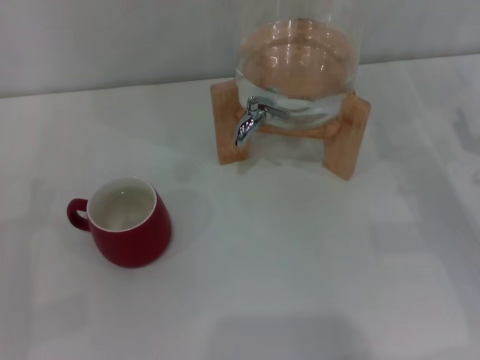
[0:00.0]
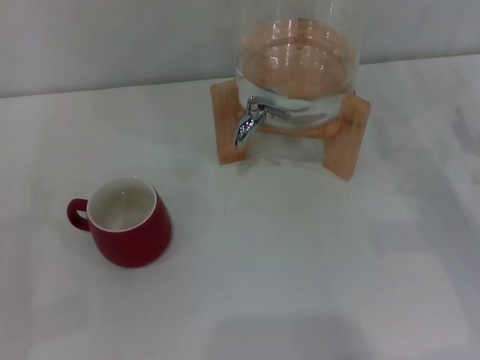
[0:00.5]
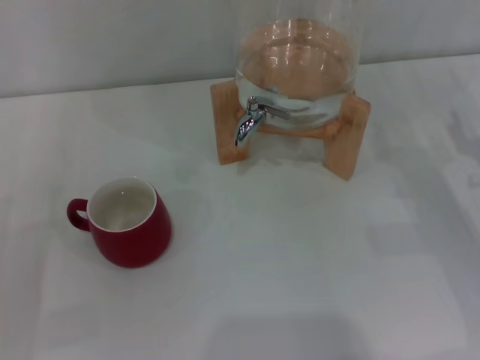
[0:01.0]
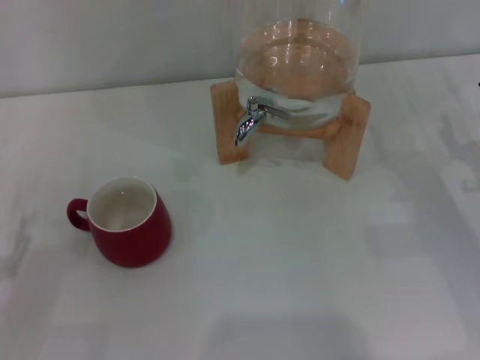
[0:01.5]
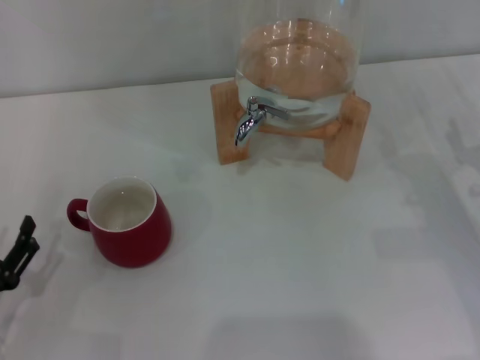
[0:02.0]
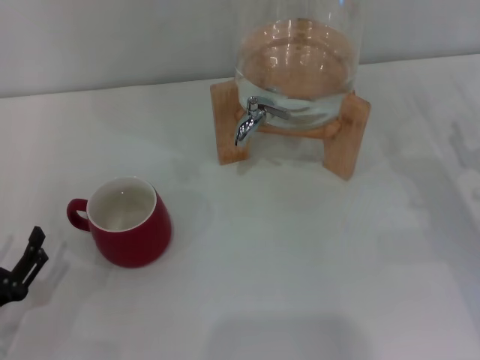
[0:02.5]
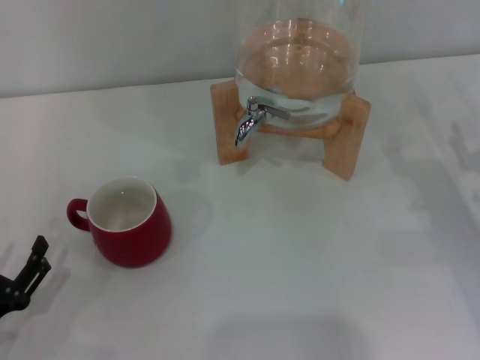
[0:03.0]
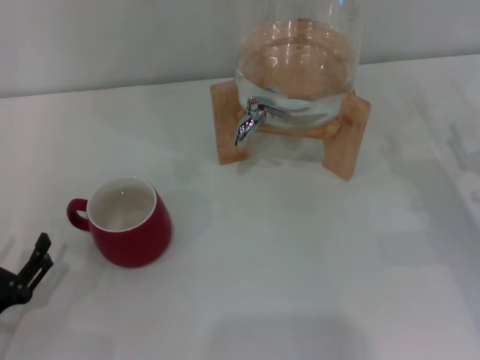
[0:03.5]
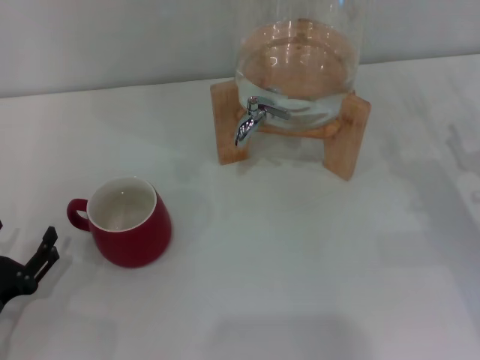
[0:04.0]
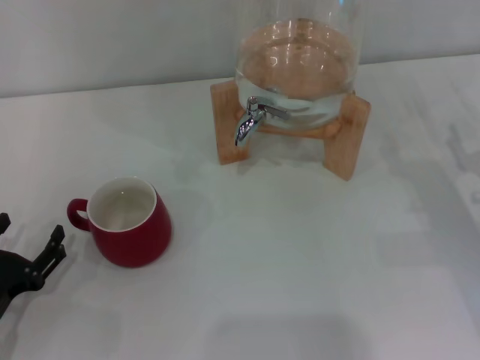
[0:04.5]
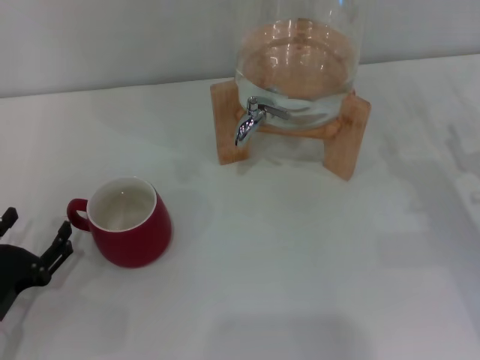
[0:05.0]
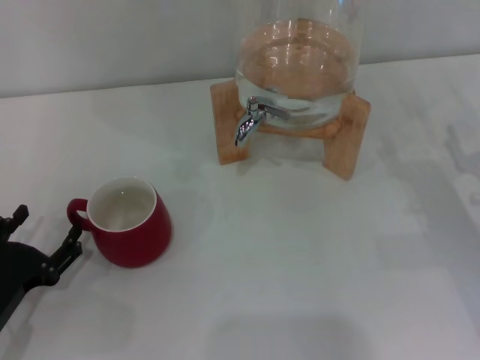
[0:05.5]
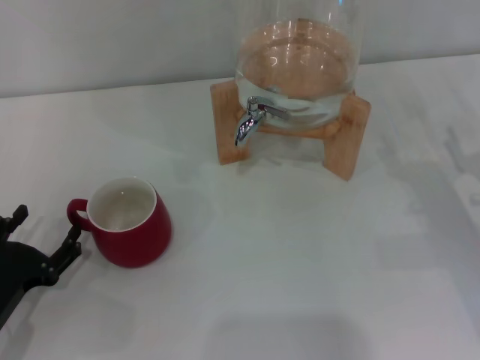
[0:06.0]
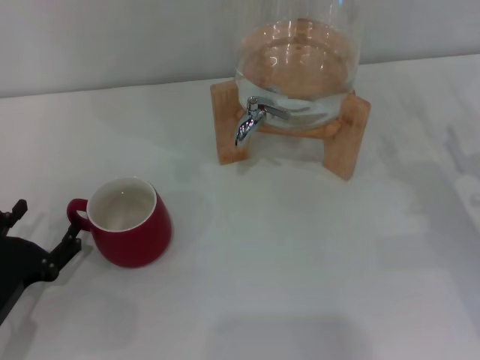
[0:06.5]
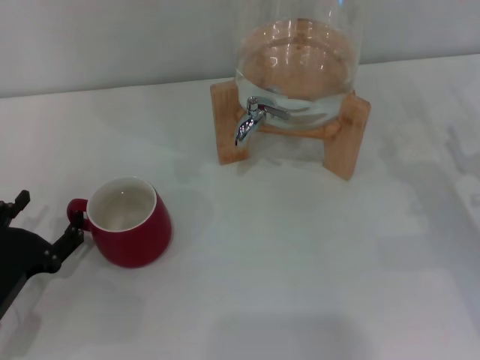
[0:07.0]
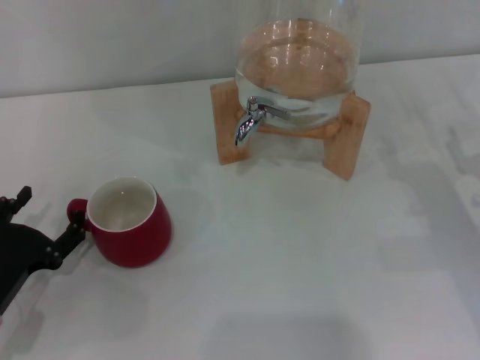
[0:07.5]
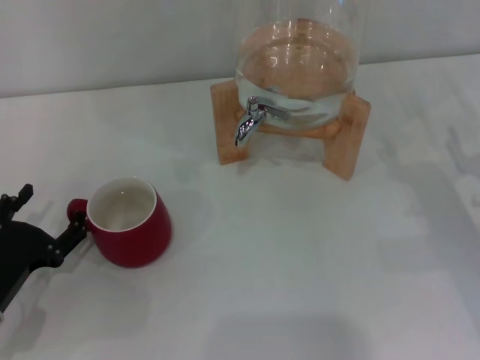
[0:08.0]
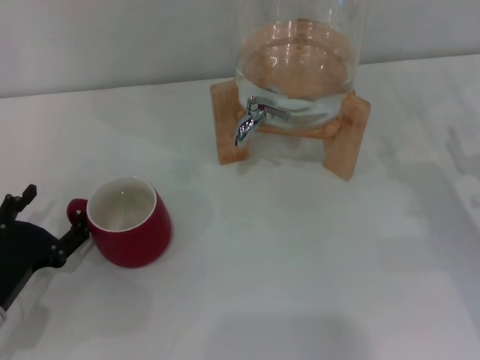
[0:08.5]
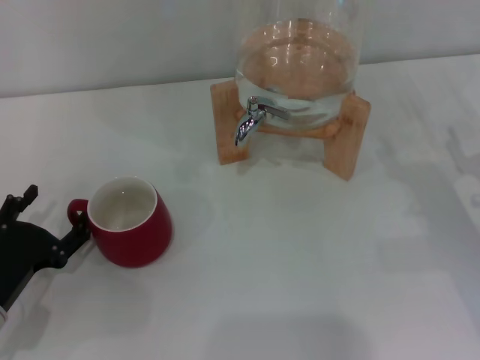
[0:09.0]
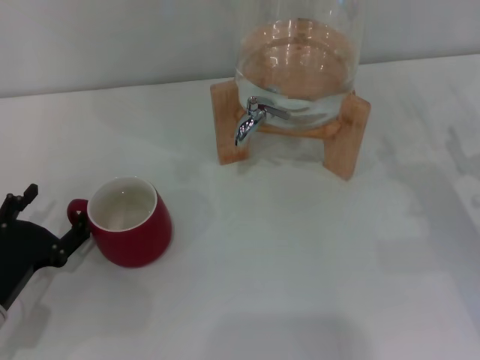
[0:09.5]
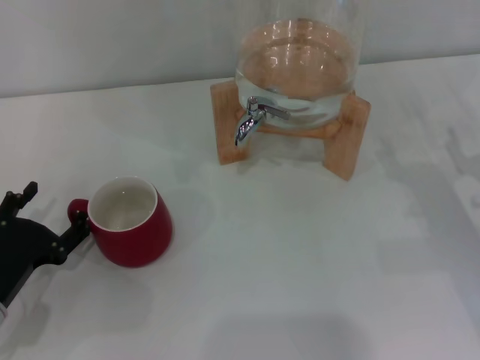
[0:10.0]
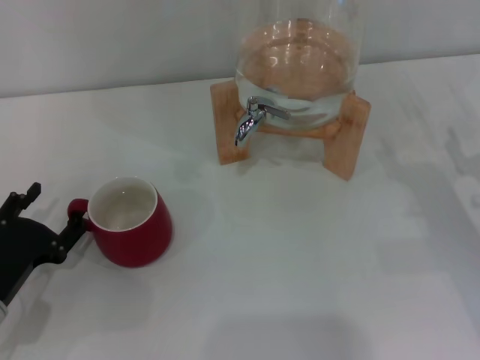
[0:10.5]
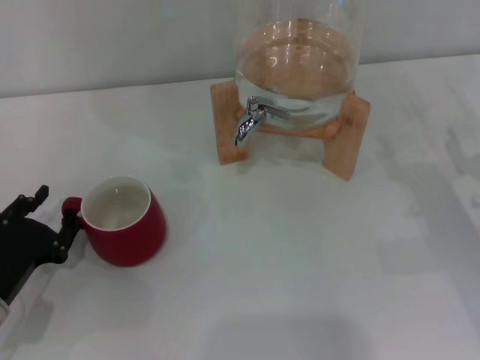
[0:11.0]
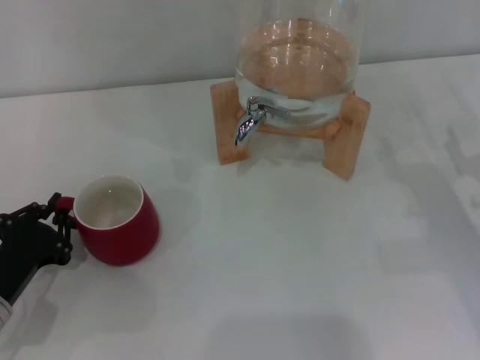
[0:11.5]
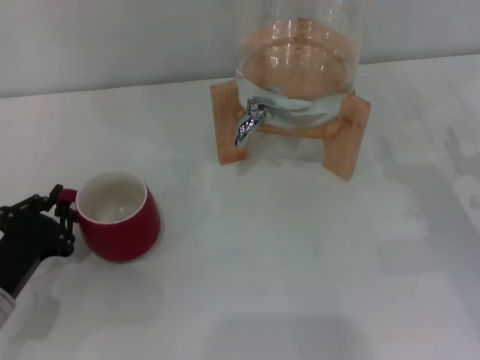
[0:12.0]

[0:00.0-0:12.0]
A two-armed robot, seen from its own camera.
Task of the whole recording: the left gripper pick up the red cup and place it horizontally under the faucet, the right gripper turn on the faucet to fill the cup, and then turn off the faucet.
0:00.0 to 0:02.0: The left gripper changes place by approximately 10 cm.
0:02.0 to 0:08.0: The grippers move only a little.
0:08.0 to 0:10.0: Both grippers stay put.
0:10.0 to 0:12.0: The left gripper closes up.

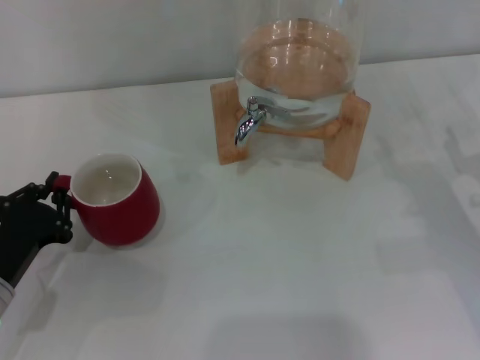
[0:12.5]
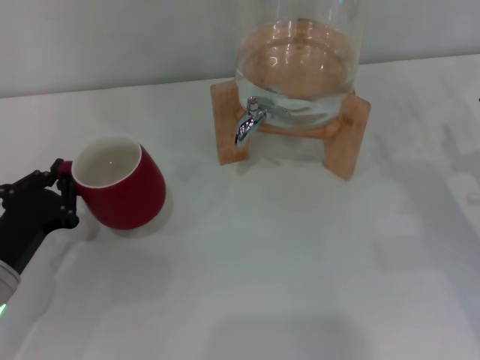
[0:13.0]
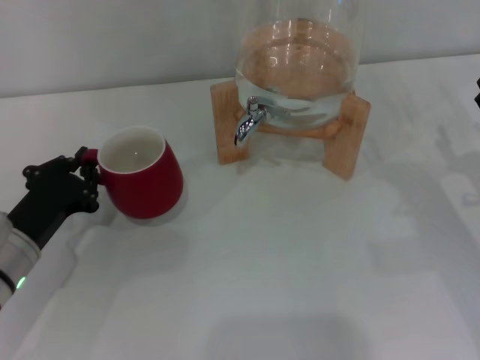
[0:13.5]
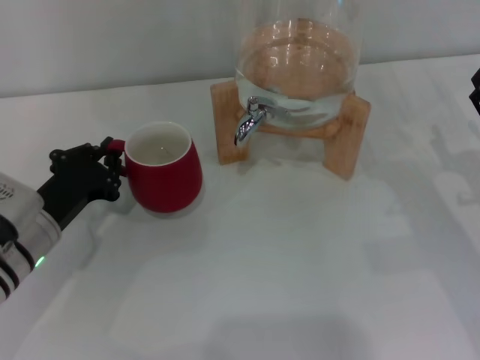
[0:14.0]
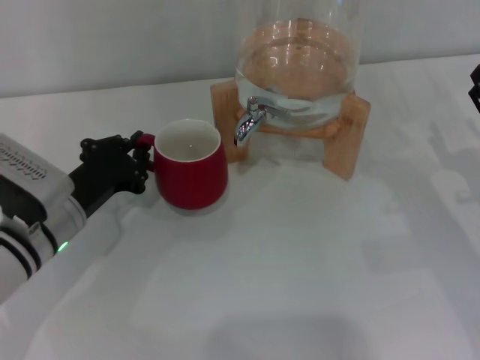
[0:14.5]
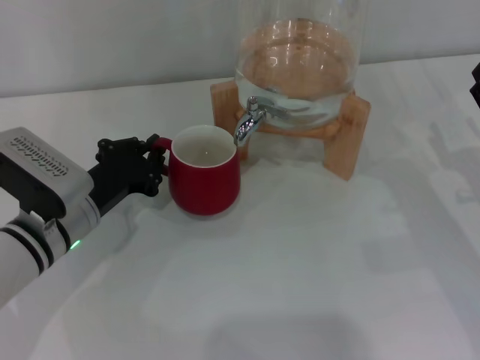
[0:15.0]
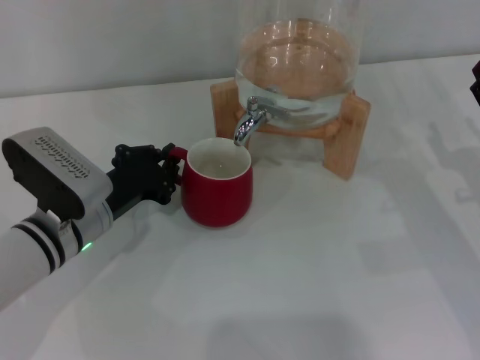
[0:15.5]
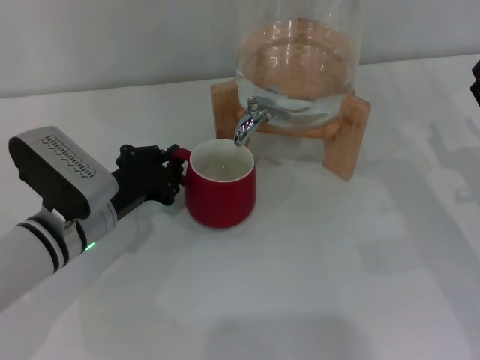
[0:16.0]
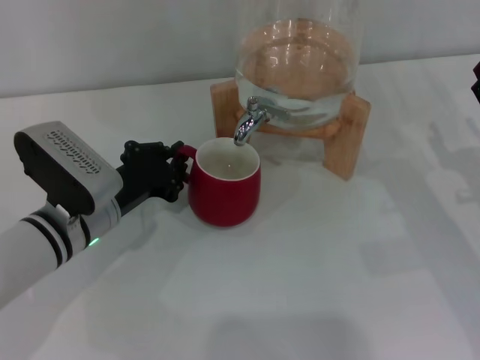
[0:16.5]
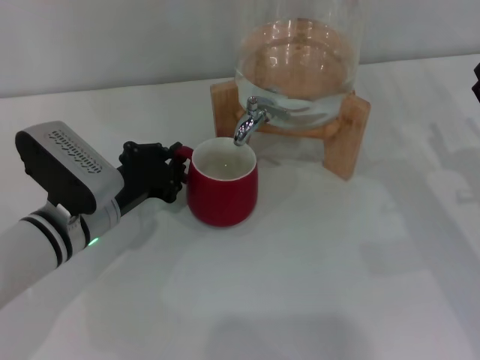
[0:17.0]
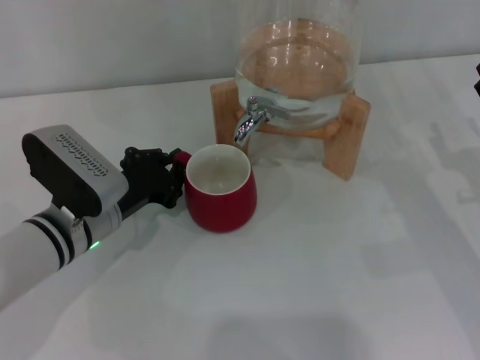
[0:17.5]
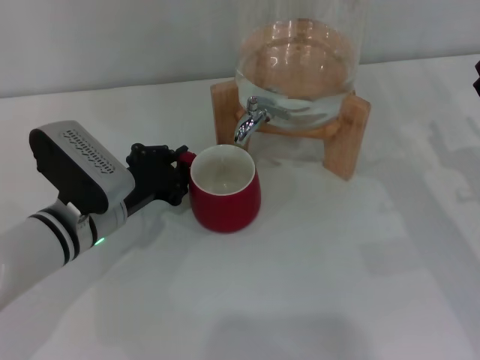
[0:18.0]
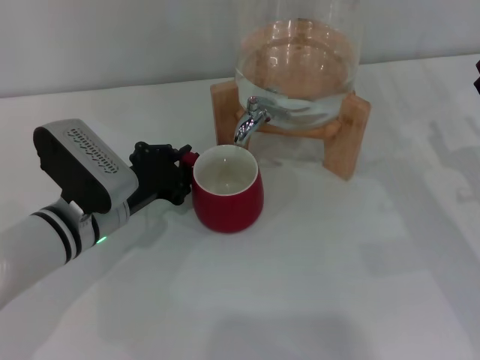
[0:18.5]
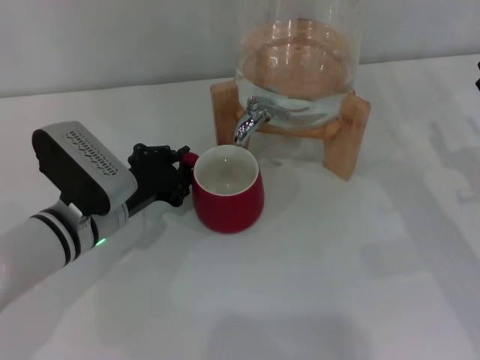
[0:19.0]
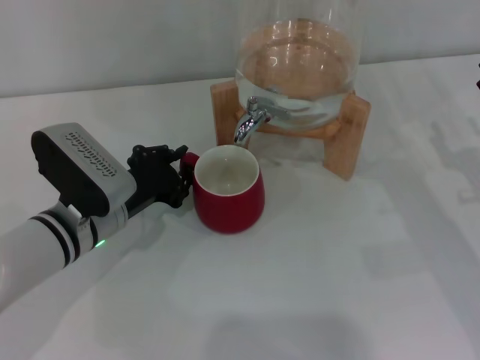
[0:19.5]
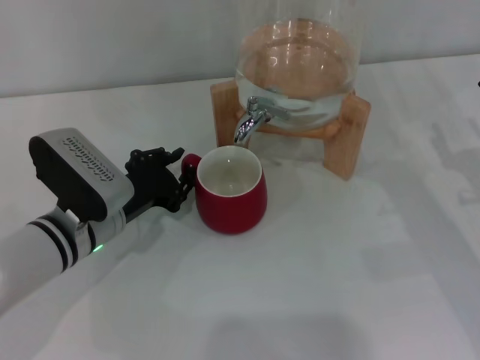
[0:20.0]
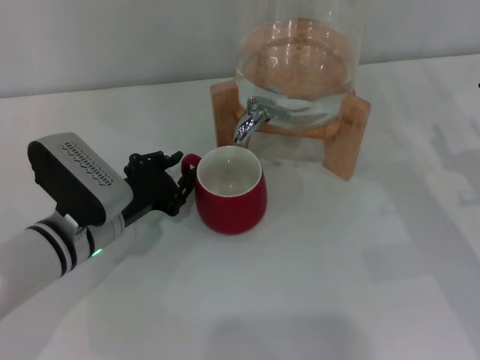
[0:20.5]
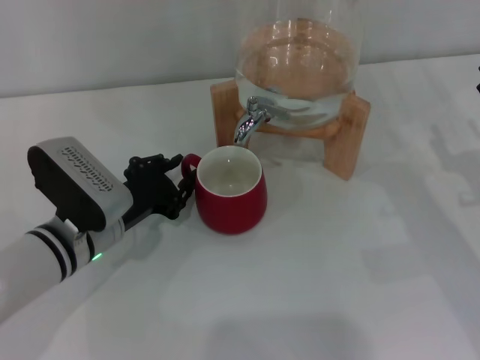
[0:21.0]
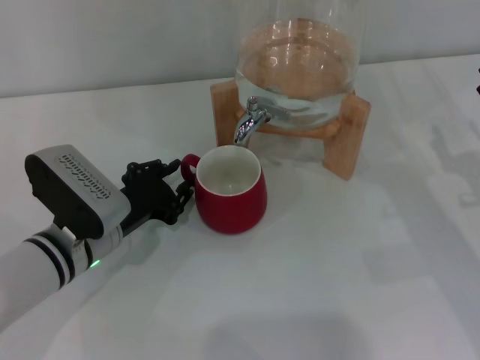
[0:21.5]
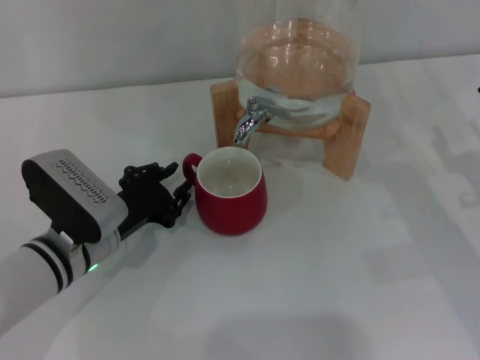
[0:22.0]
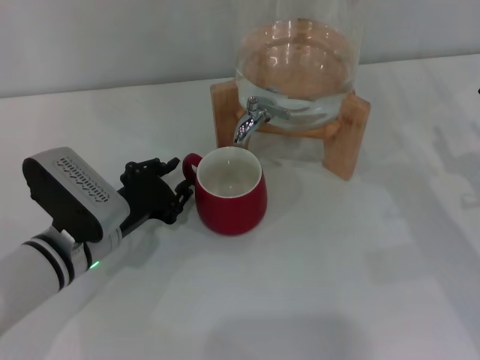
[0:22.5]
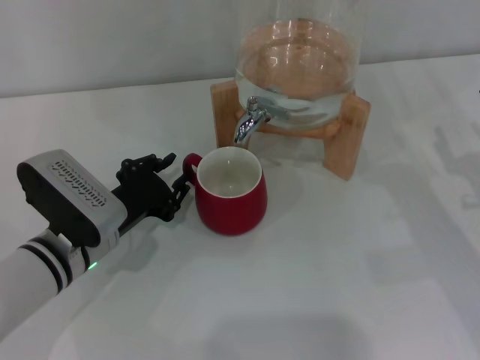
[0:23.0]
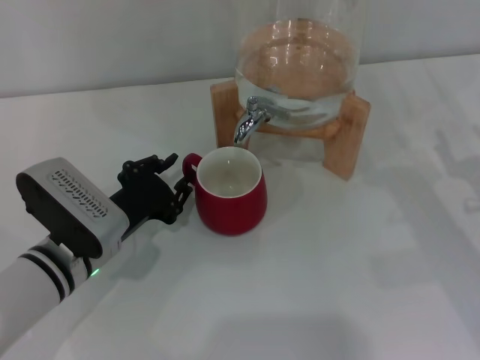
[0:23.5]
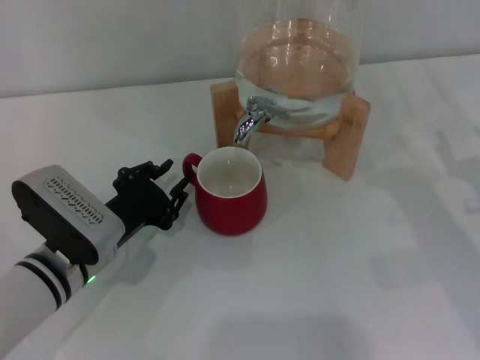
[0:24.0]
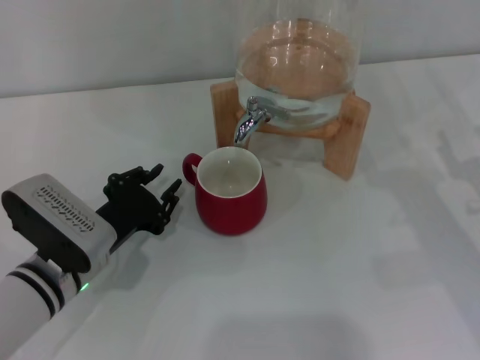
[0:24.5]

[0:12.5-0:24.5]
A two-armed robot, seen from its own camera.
Task of the whole recording: the left gripper pick up the red cup and place it horizontally under the faucet, the right gripper turn on the faucet to fill the cup, and then turn off the faucet.
Step, 0:12.5 to 0:24.0: Move the cup beneath the water dispenser nozzle with the left gripper.
0:12.5 to 0:14.5: The left gripper travels forward and to the right by some 10 cm.
0:14.5 to 0:16.5: The grippers make only small movements.
0:16.5 to 0:20.5: Both grippers stay put.
0:20.5 to 0:24.5: The grippers stay close to where they were, moving slightly.

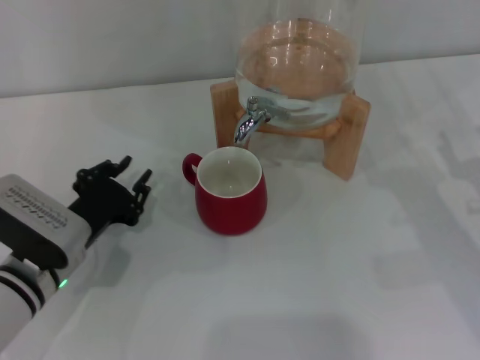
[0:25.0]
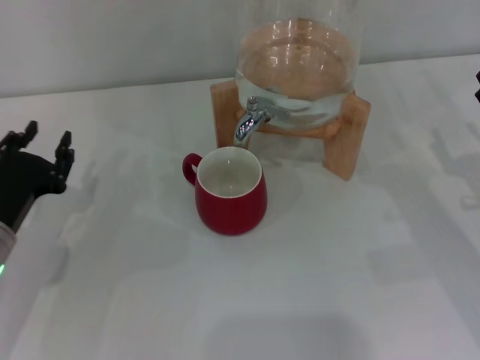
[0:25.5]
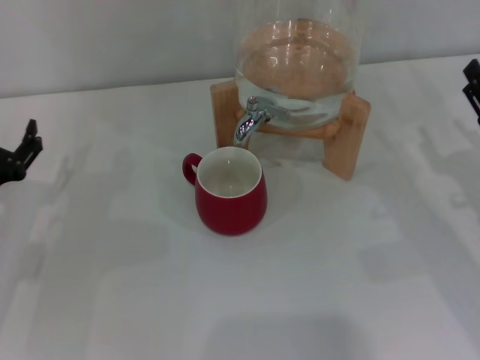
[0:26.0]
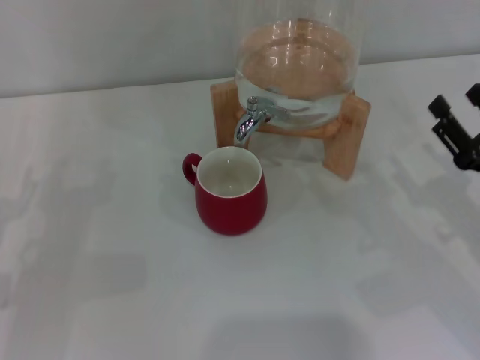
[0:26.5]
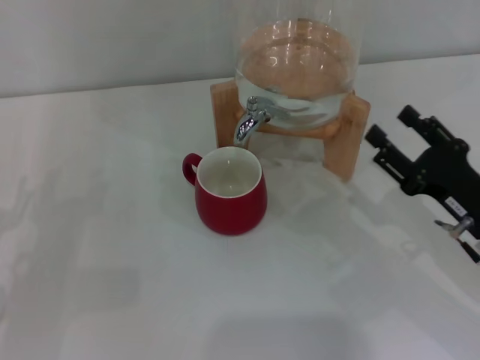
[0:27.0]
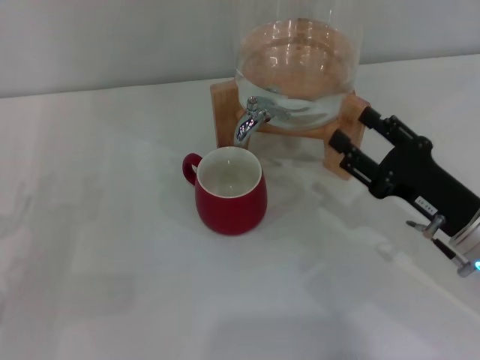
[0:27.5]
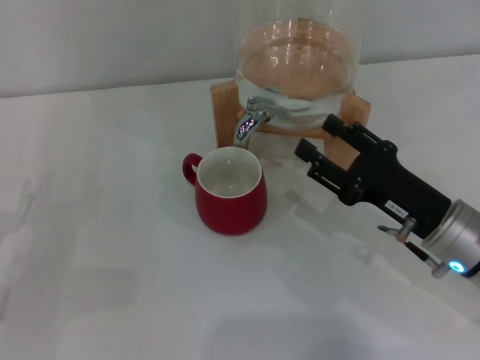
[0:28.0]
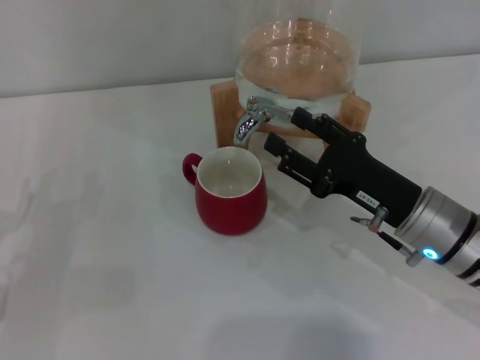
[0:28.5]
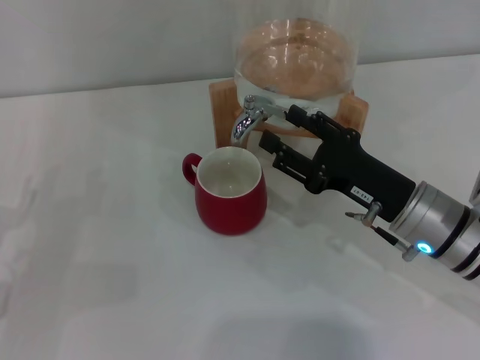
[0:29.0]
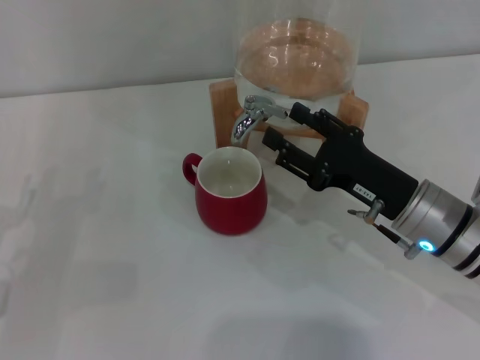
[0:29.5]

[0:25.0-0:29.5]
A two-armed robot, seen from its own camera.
Task of the whole recording: the left gripper pick up the red cup and place it horizontally under the faucet, the right gripper turn on the faucet to fill the cup, and then turn off the faucet.
0:25.0 to 0:27.0: The right gripper goes some 5 cm to the left, while the left gripper is displaced to the left by about 10 cm, and opens its fingers.
0:27.0 to 0:29.5: The right gripper moves to the left, about 5 cm.
